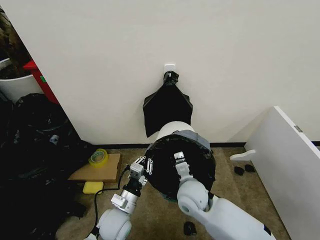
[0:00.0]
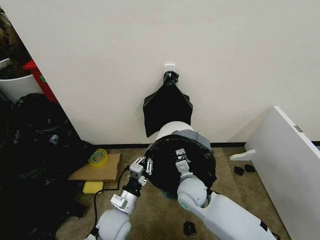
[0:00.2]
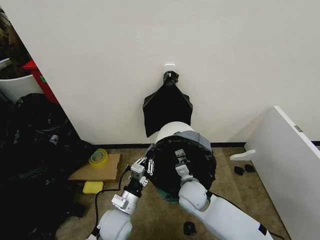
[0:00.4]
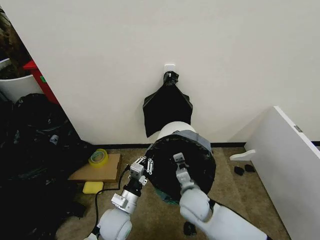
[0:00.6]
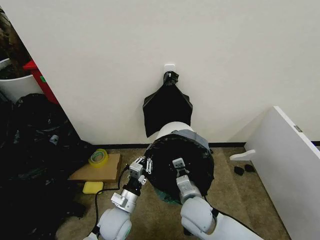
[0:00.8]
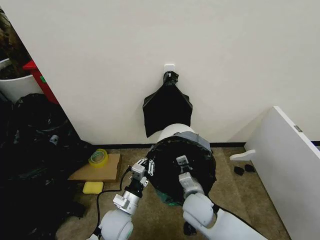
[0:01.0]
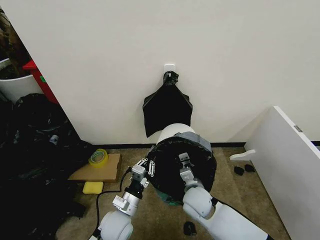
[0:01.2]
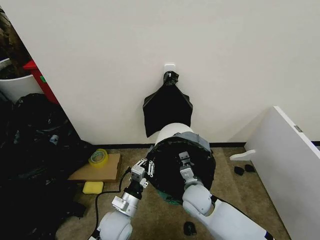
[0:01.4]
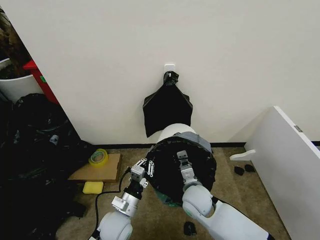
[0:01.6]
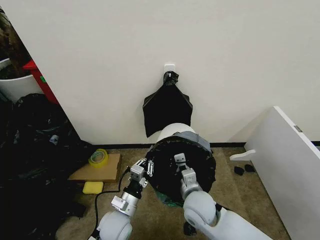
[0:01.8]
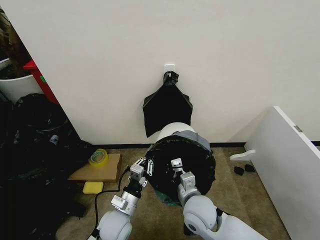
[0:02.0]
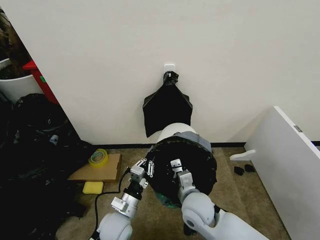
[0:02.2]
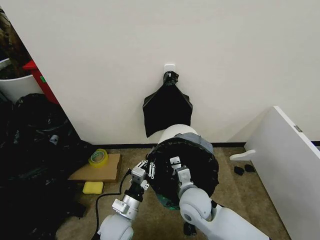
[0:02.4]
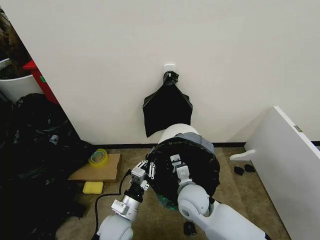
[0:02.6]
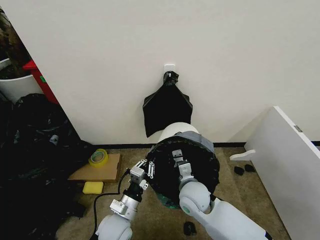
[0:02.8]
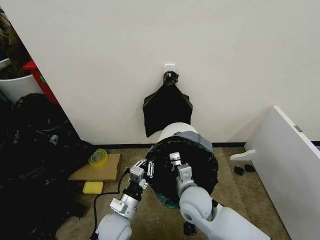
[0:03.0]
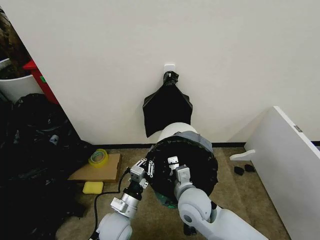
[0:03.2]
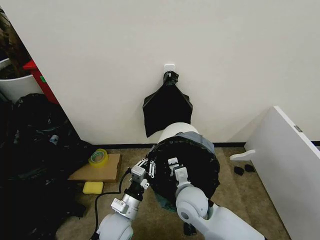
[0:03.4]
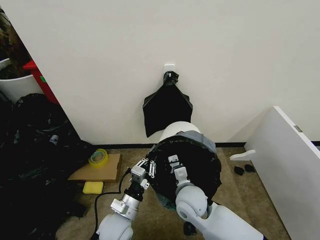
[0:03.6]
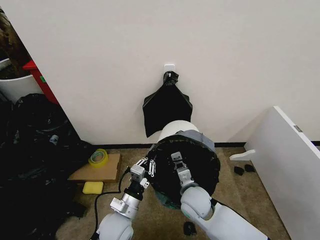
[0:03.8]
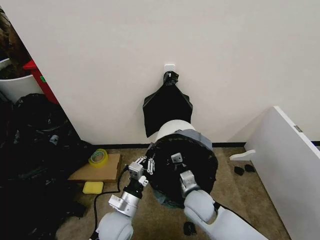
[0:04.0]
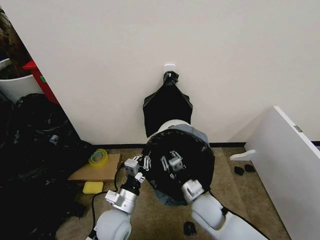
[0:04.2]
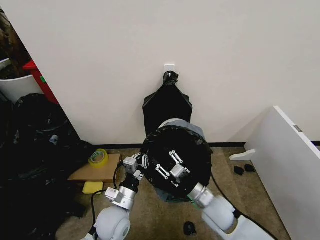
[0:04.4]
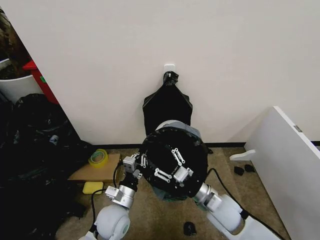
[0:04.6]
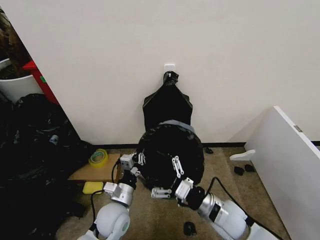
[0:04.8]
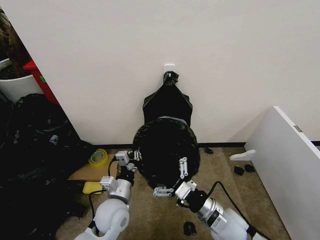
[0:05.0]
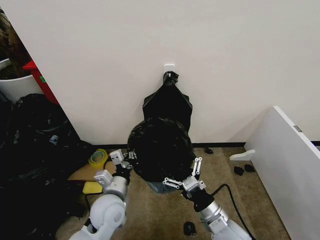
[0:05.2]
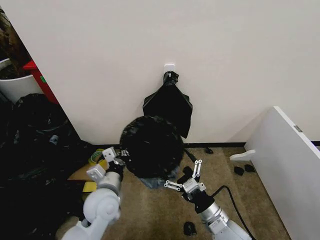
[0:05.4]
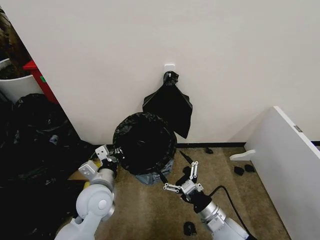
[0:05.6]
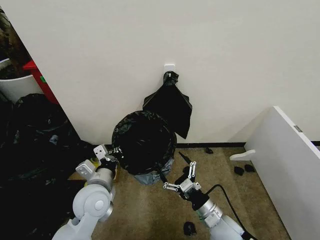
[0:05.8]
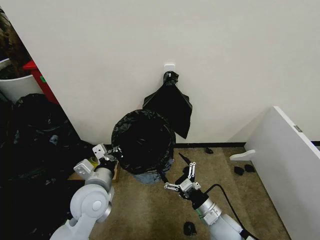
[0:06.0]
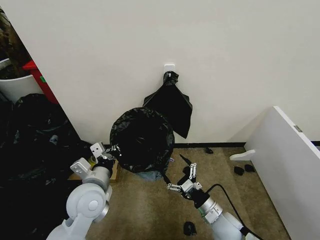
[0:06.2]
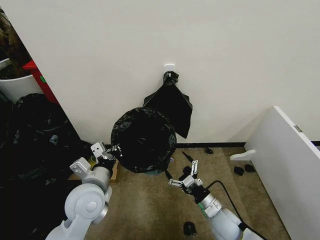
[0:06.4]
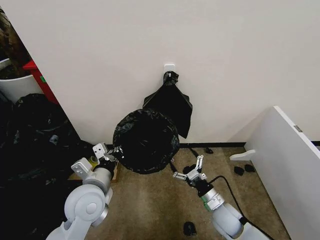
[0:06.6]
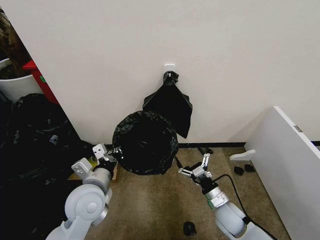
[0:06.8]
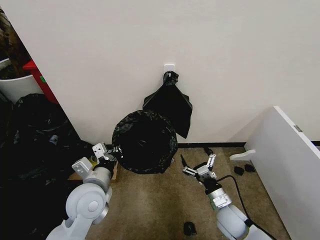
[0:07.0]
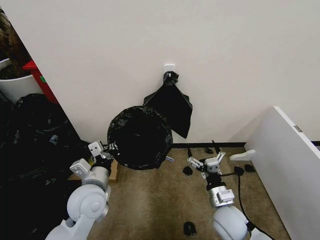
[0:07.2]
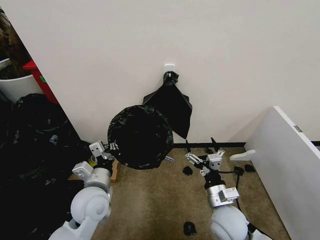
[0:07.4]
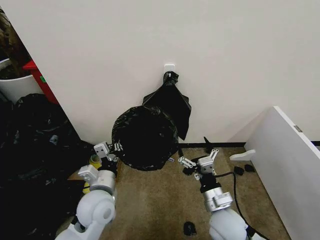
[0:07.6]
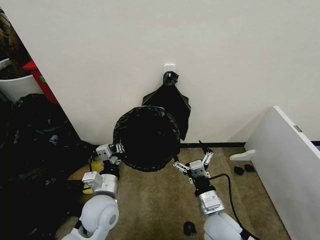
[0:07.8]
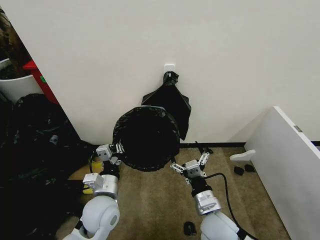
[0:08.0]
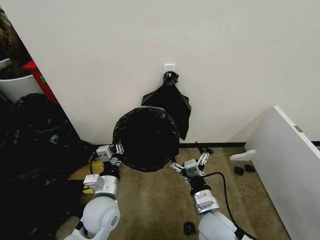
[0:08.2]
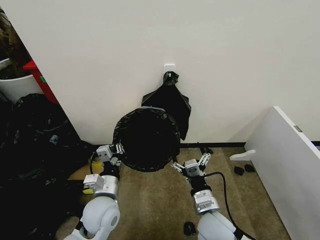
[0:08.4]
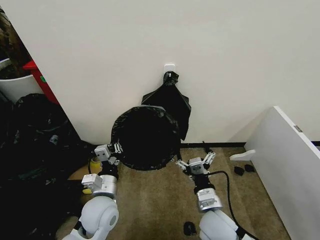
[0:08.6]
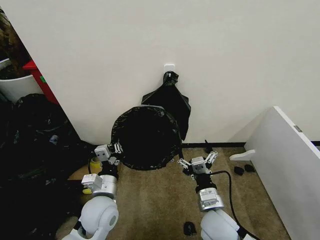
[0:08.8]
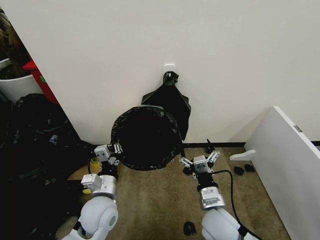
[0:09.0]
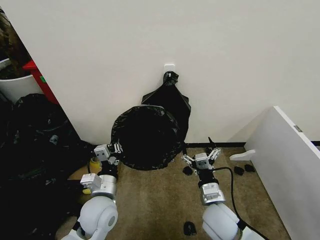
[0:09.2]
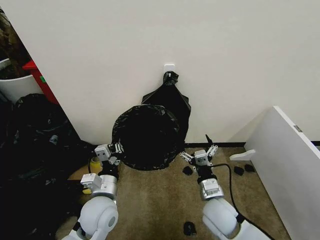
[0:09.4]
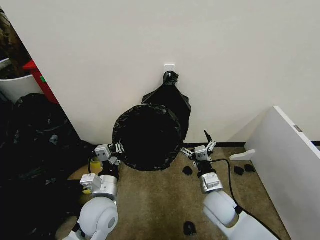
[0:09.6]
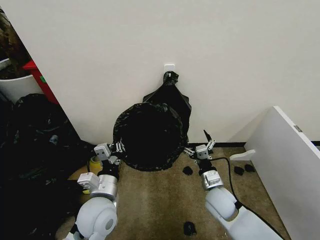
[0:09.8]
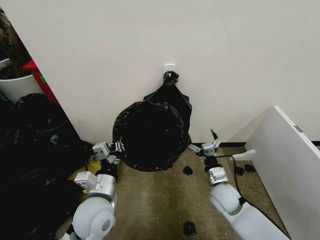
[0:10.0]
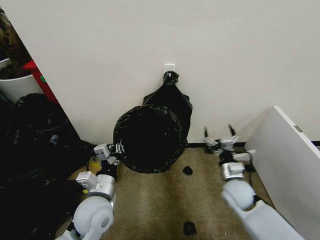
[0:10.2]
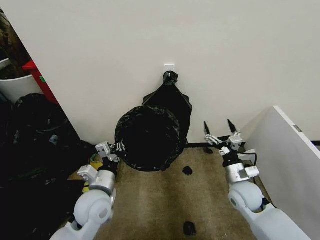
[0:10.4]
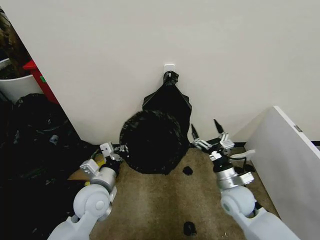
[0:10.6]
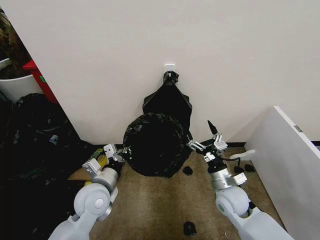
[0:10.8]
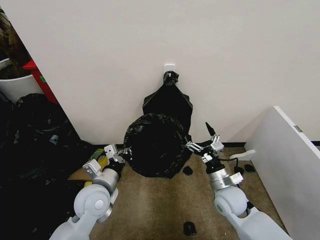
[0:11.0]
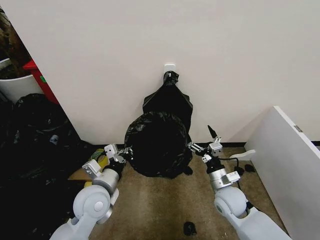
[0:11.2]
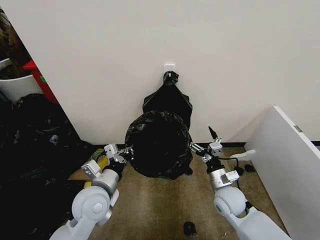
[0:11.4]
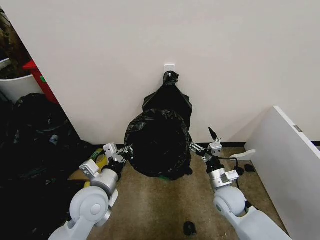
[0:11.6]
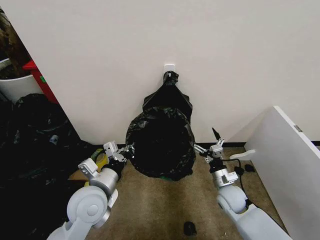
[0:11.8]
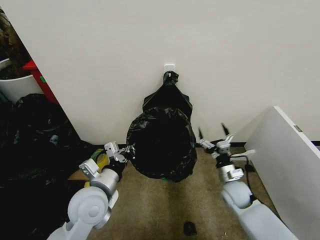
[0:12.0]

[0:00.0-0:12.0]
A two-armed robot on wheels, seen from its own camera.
Task of the whole recording: Place the garbage bag over the trash bin.
1.6 to 3.0 s: The right gripper shifts by approximately 5 cm.
3.0 to 4.4 s: The right gripper shifts about 5 cm to the right, and opens its fingers.
4.4 to 6.0 s: The left gripper is displaced upward and to the left by approximately 10 cm. Meanwhile the right gripper changes place by approximately 5 cm, and opens up.
6.0 to 7.6 s: The right gripper shifts about 5 cm upward.
9.0 to 10.4 s: The right gripper heads to the right and forward, covering about 15 cm.
10.4 to 12.0 s: The right gripper heads downward, covering roughly 5 cm.

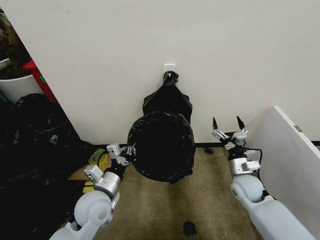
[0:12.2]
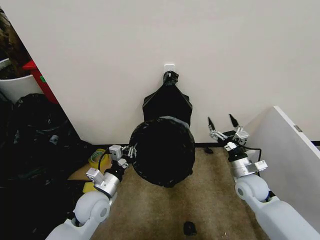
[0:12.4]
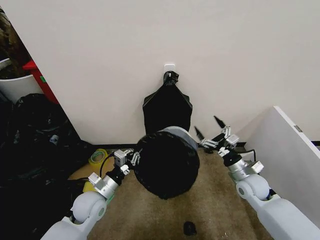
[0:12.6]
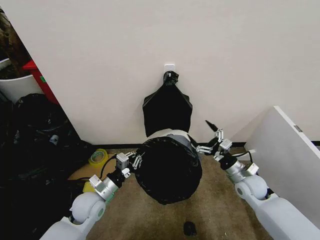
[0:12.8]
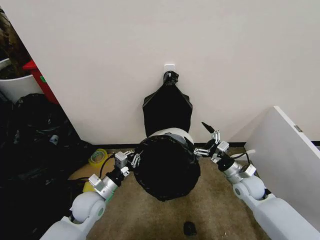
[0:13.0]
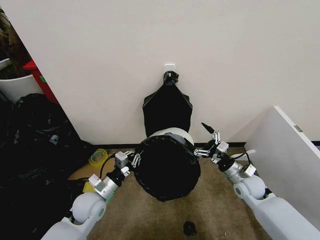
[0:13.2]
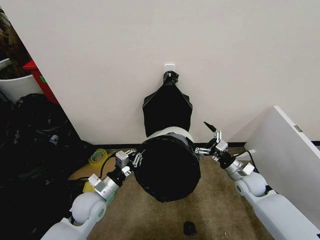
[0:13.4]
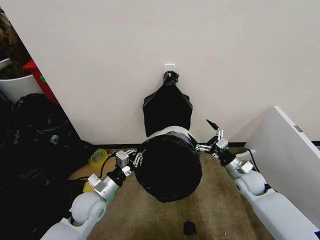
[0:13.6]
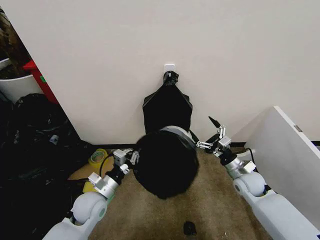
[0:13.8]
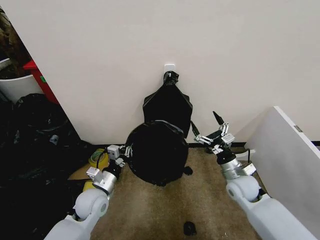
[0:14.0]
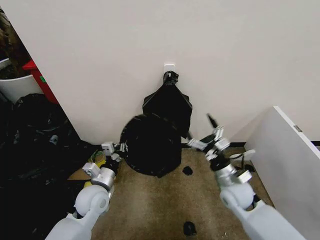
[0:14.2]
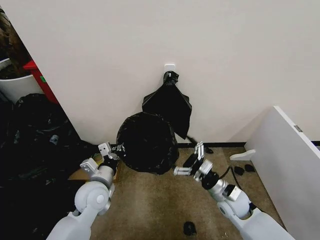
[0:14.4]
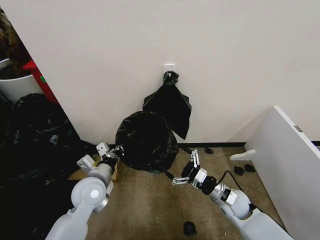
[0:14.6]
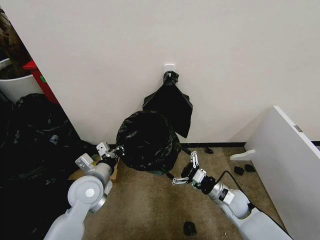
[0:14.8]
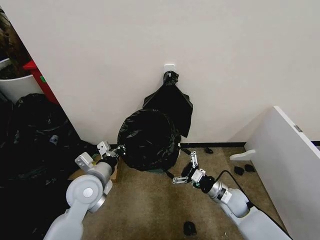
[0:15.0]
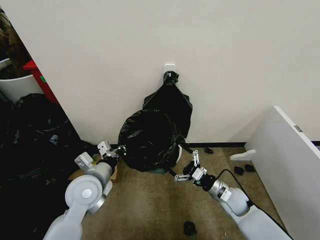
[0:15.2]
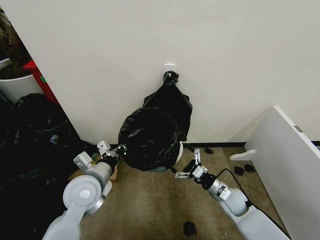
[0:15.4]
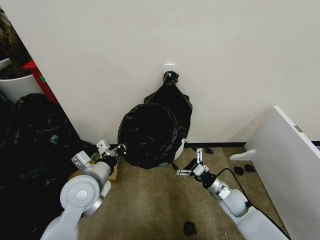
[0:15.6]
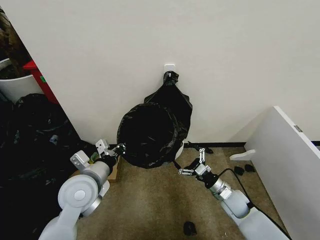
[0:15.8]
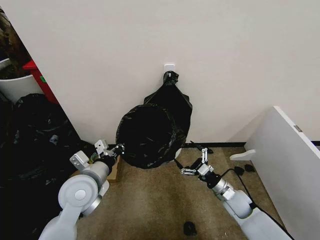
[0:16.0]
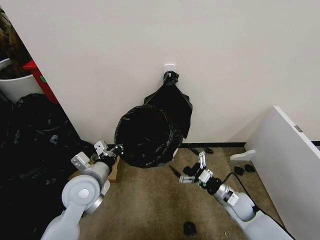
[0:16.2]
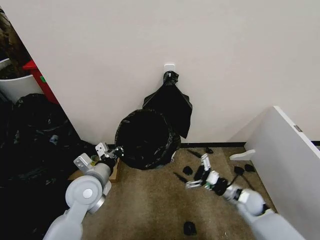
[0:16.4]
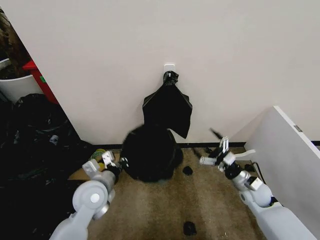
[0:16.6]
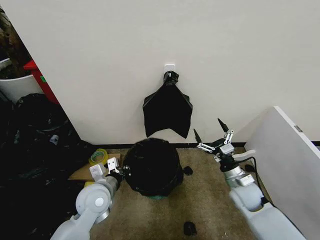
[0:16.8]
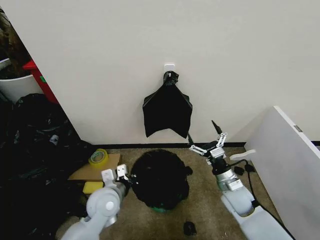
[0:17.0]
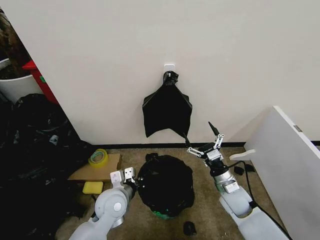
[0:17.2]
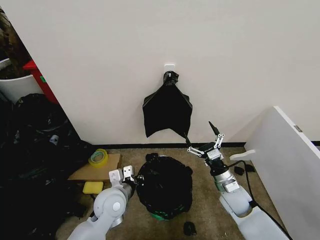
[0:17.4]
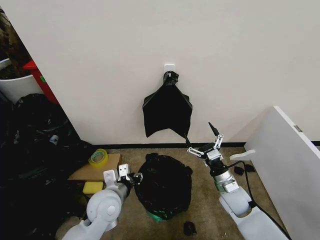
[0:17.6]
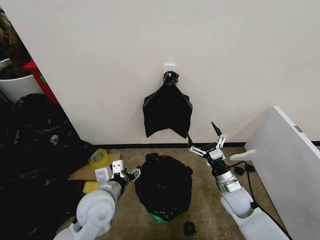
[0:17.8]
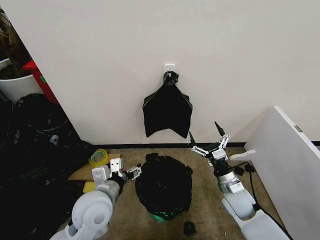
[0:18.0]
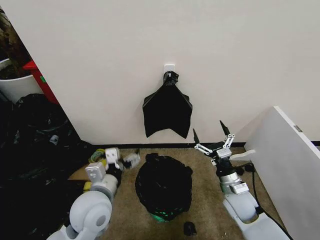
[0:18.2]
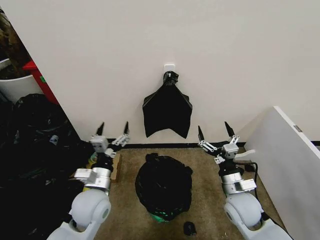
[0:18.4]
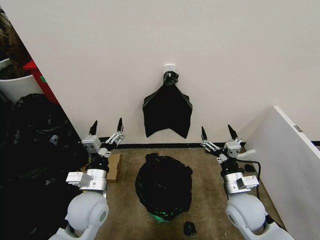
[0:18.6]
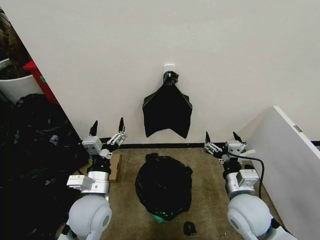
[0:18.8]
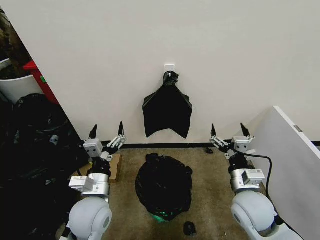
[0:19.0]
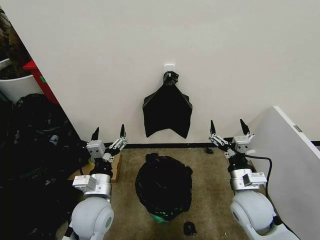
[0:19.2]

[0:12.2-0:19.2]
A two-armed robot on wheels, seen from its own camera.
Task of the whole recording: Place the garbage bag over the trash bin.
12.2 to 13.6 s: The left gripper goes some 5 cm downward.
13.6 to 15.0 s: The right gripper shifts some 10 cm to the left and backward. The left gripper goes roughly 10 cm upward.
15.0 to 16.4 s: The right gripper moves to the right, some 5 cm.
16.4 to 17.8 s: The right gripper heads to the left, covering roughly 5 cm, while the left gripper opens its fingers.
17.8 to 19.2 s: The left gripper opens up. Meanwhile the right gripper travels upward and backward by about 10 cm.

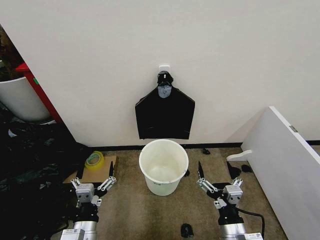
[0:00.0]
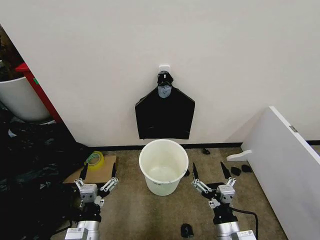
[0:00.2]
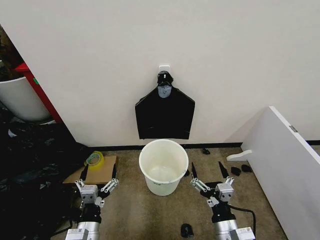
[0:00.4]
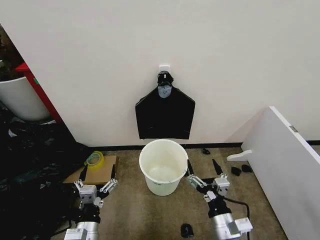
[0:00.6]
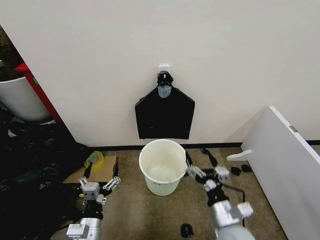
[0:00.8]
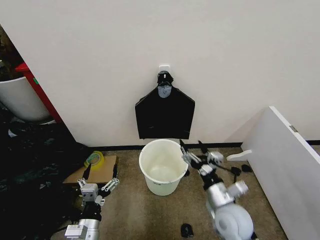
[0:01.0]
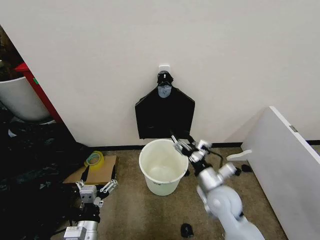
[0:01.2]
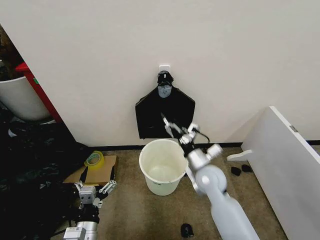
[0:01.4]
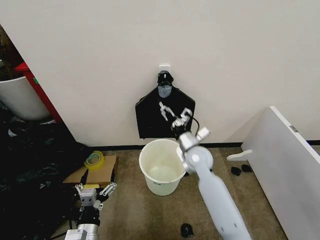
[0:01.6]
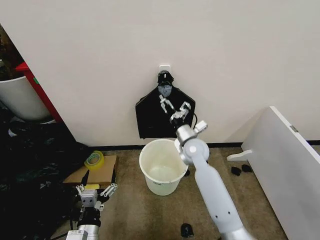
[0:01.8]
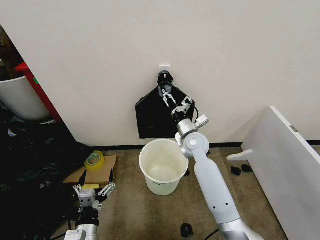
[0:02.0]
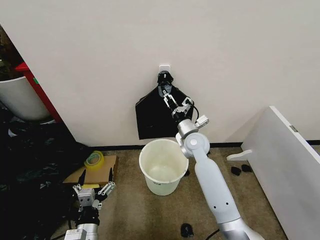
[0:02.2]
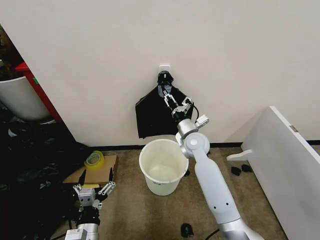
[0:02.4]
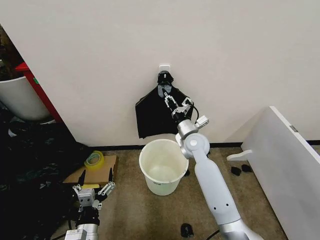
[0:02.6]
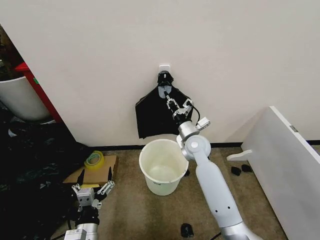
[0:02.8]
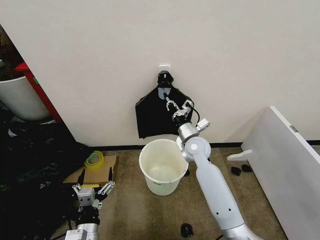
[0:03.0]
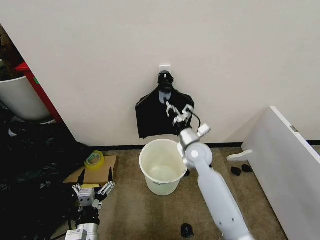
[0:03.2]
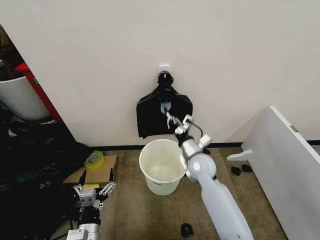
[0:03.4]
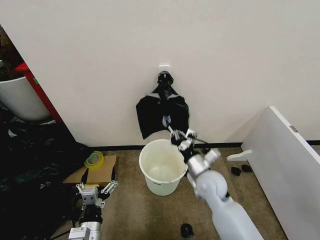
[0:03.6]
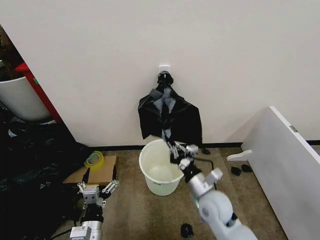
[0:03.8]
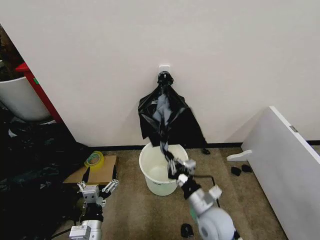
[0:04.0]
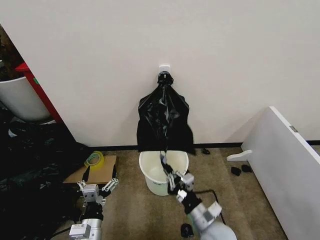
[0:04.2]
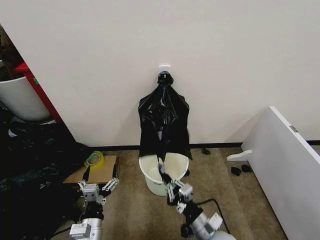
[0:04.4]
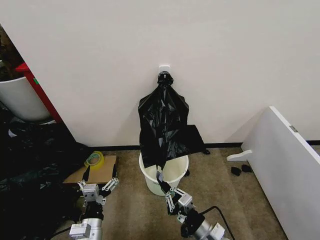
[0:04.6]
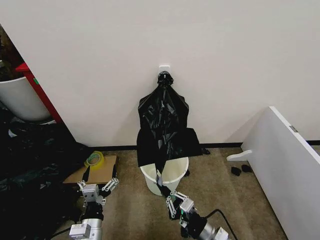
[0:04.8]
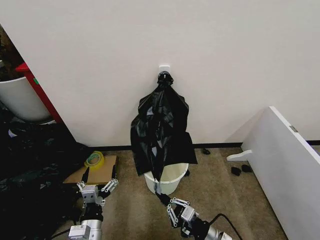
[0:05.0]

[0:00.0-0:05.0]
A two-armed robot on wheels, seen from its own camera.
Task of the whole recording: Place the garbage bag over the trash bin.
1.6 to 3.4 s: The right gripper goes forward and returns, approximately 5 cm each way, and closes up.
3.4 to 5.0 s: The right gripper goes roughly 20 cm backward.
